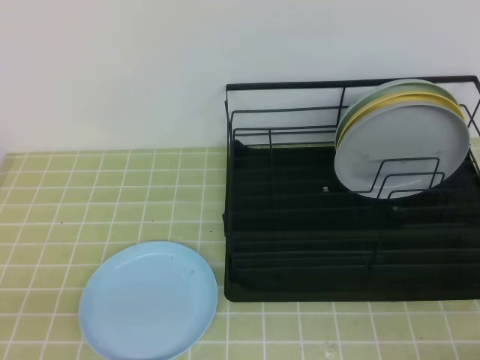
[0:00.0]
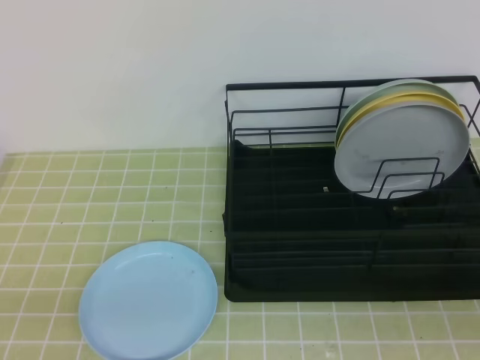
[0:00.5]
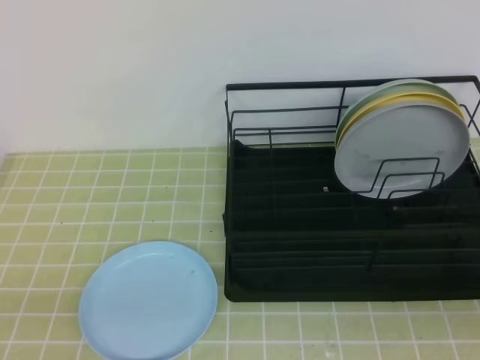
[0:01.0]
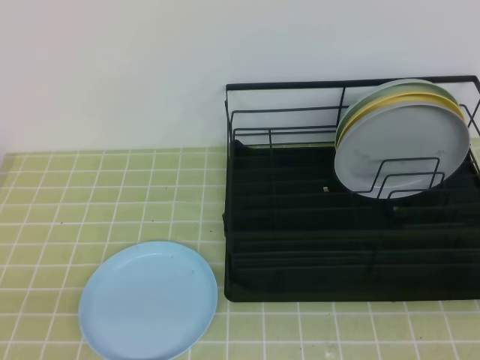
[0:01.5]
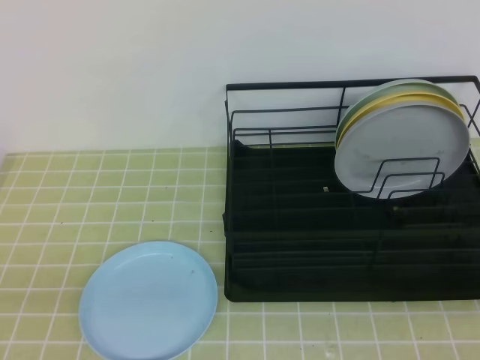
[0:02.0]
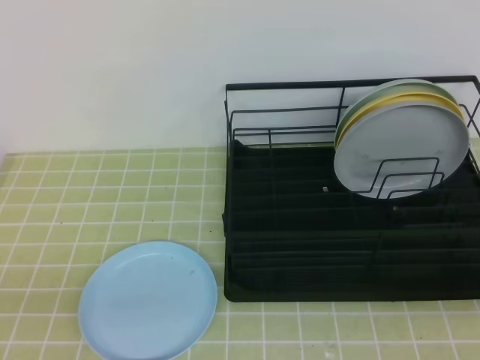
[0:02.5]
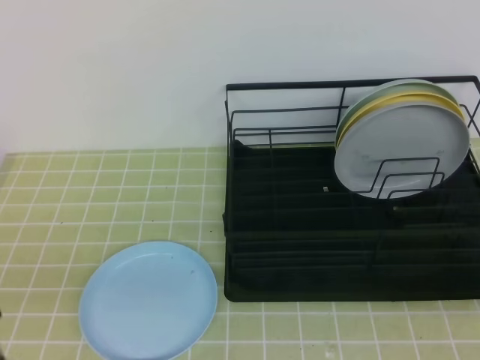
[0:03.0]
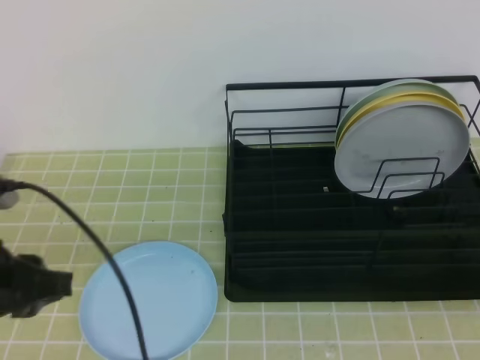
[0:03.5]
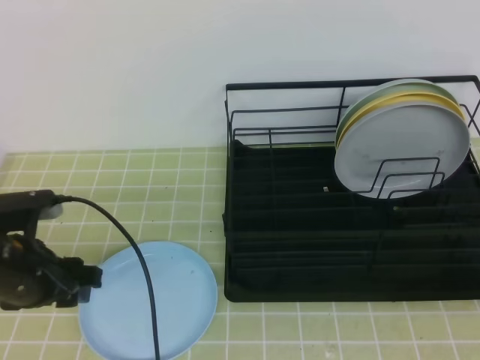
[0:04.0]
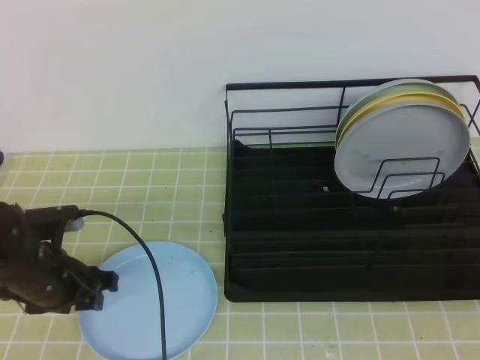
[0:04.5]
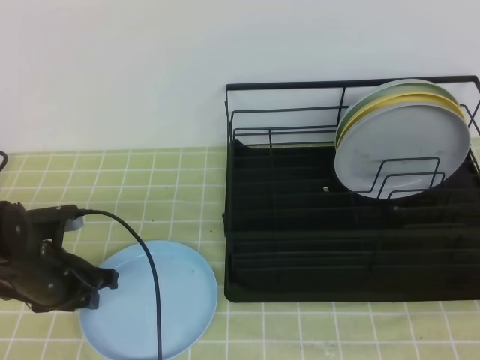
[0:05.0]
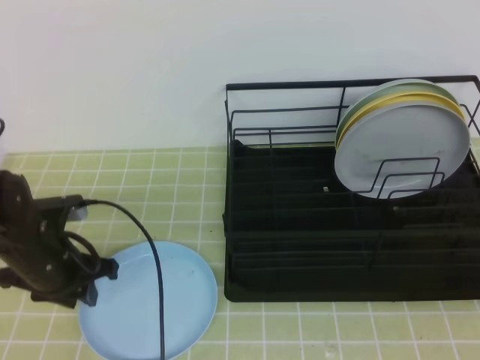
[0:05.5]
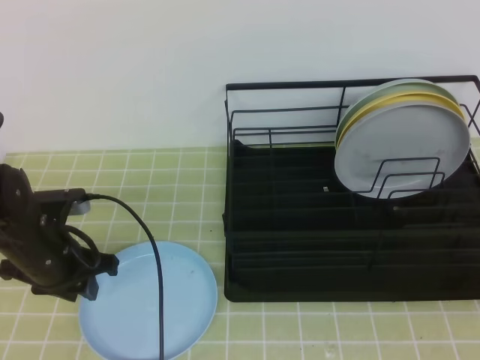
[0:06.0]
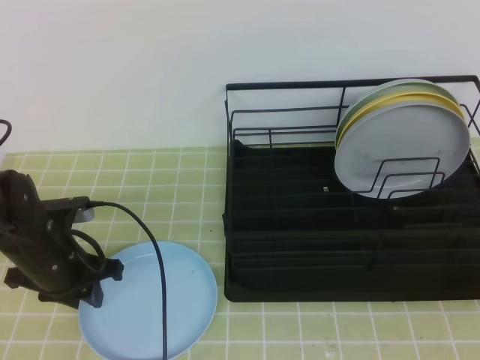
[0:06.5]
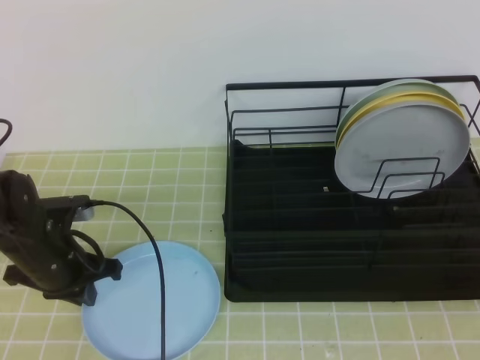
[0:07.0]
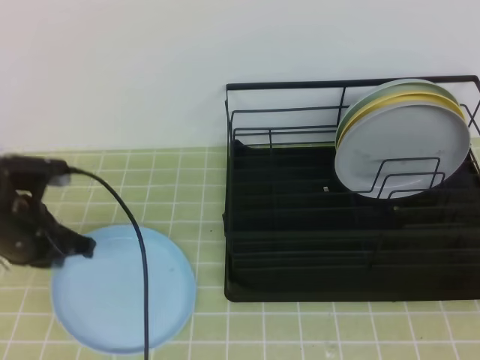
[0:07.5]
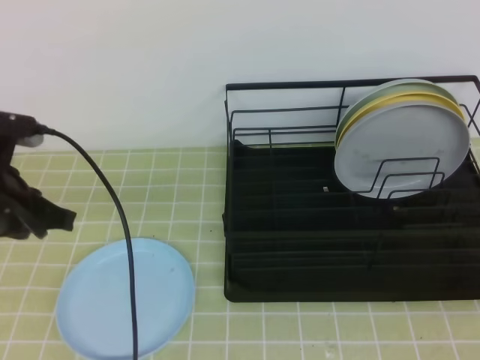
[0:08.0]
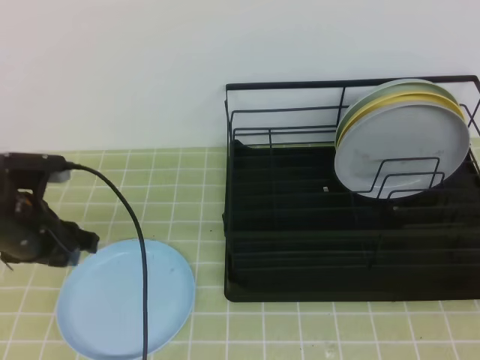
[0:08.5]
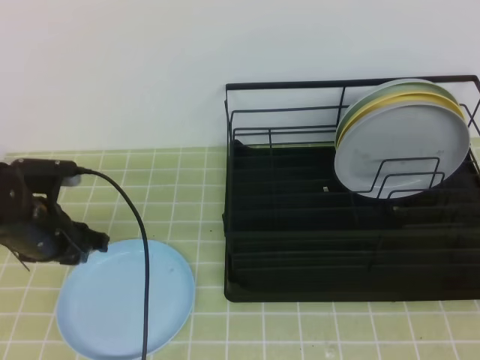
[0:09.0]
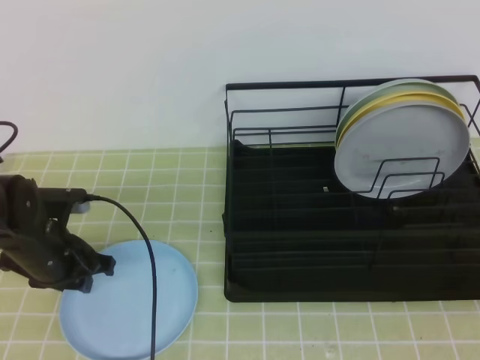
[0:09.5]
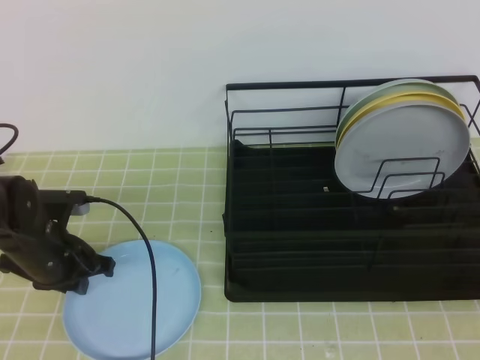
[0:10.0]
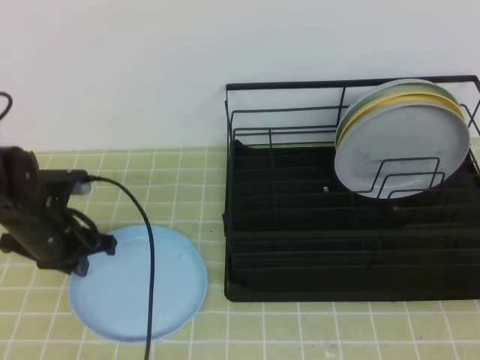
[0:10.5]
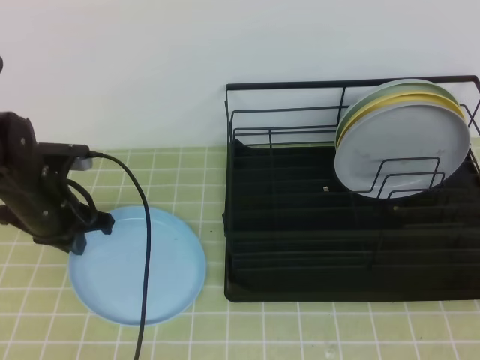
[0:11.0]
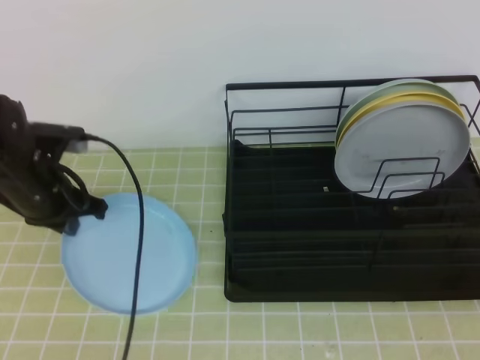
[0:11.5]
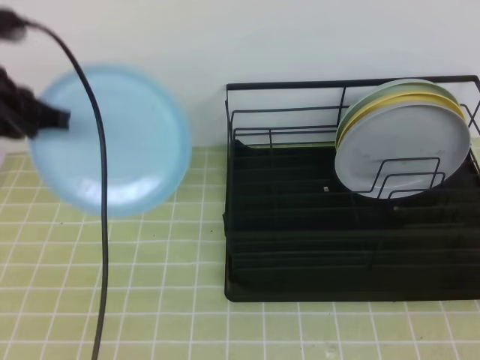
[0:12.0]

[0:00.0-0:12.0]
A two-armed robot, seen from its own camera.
2.0 to 4.0 s: The left gripper moves forward, roughly 20 cm, and opens its fingers.
4.0 to 6.0 s: The left gripper is displaced forward by approximately 5 cm, and closes.
6.0 to 8.0 s: The left gripper is displaced upward by about 10 cm, and closes its fingers.
8.0 to 10.0 s: The left gripper shifts some 15 cm downward, and opens, then closes again.
10.0 to 12.0 s: The left gripper is displaced upward by about 20 cm.

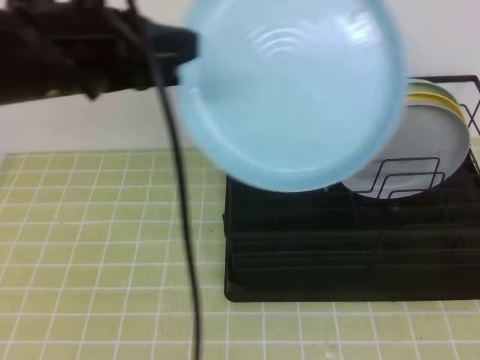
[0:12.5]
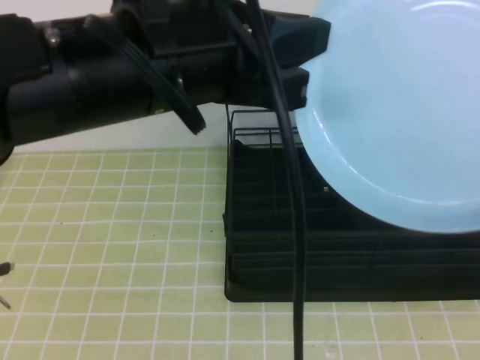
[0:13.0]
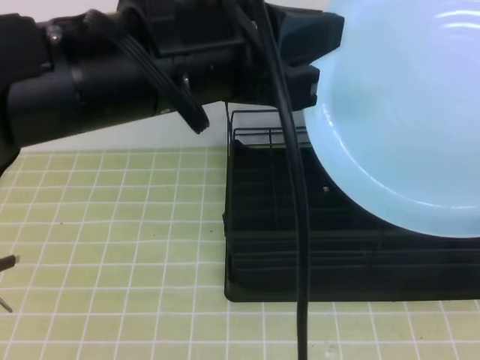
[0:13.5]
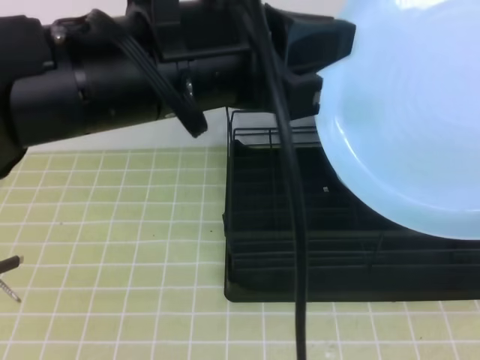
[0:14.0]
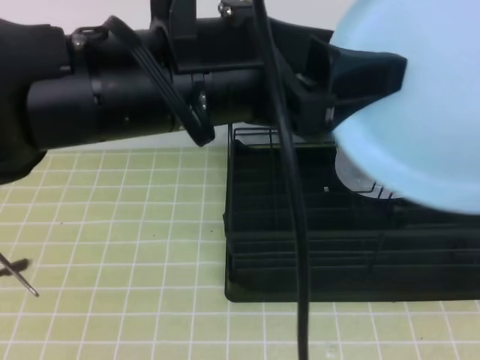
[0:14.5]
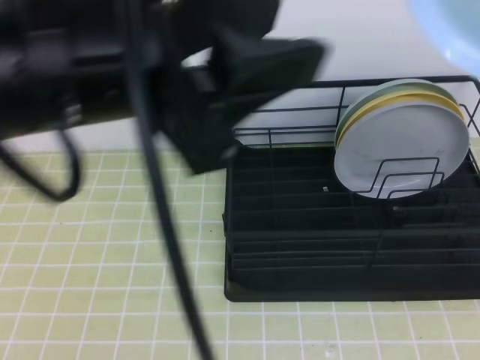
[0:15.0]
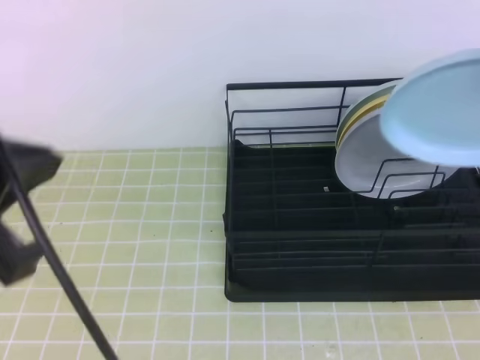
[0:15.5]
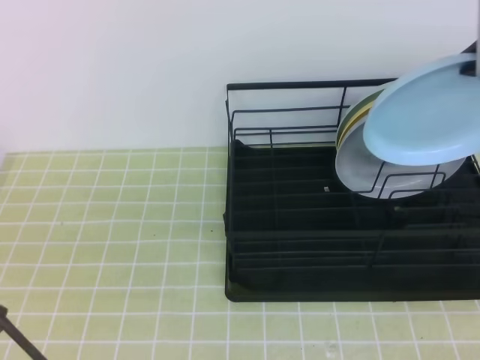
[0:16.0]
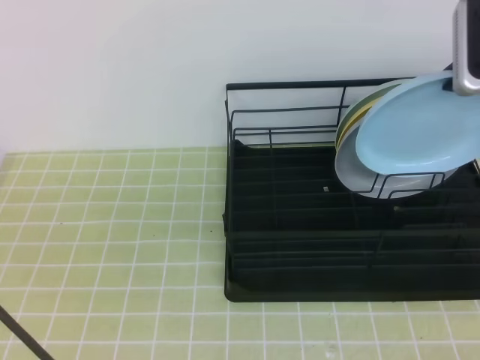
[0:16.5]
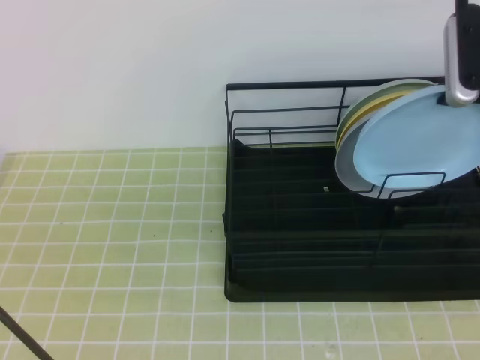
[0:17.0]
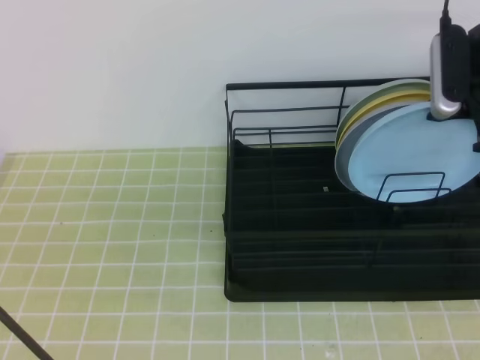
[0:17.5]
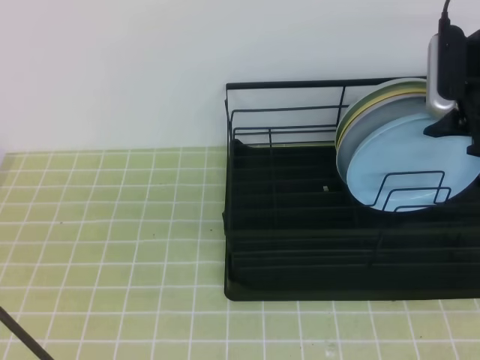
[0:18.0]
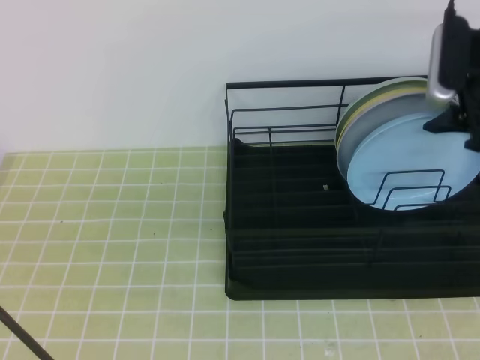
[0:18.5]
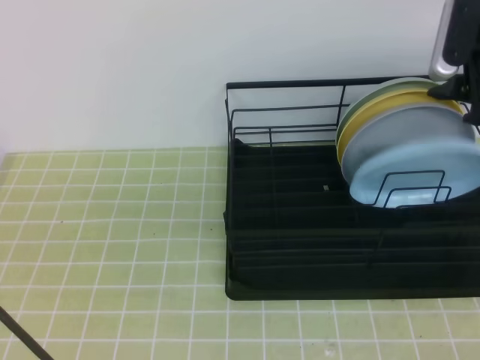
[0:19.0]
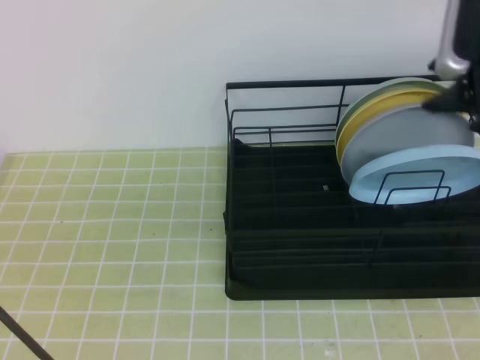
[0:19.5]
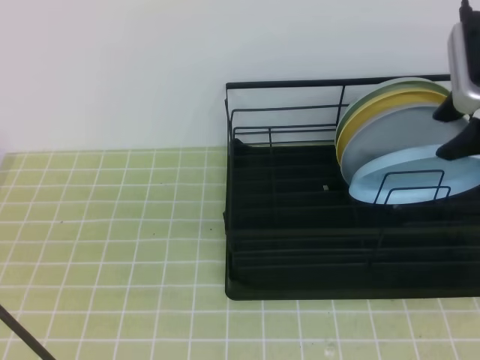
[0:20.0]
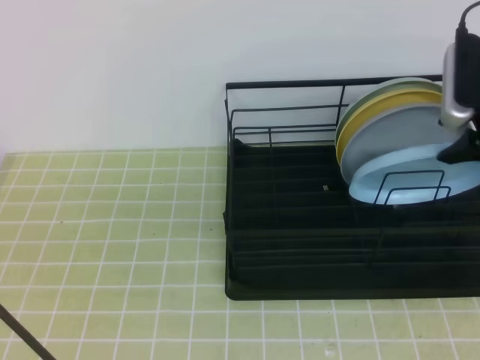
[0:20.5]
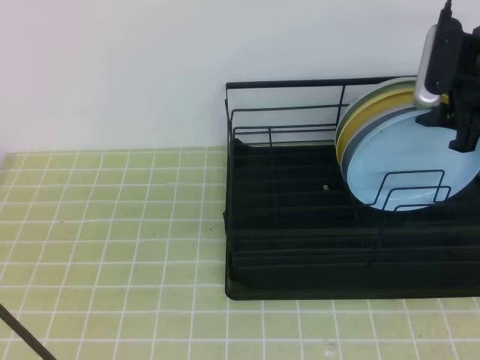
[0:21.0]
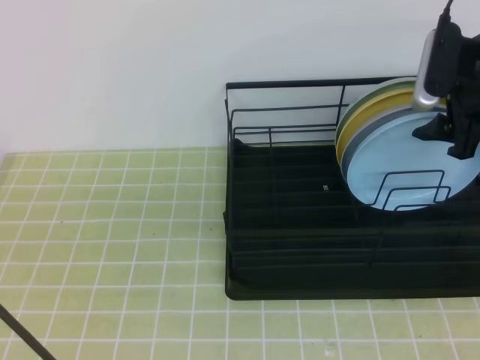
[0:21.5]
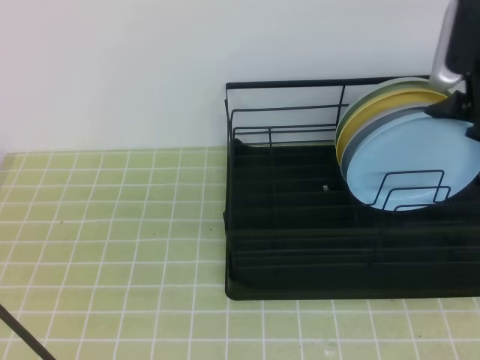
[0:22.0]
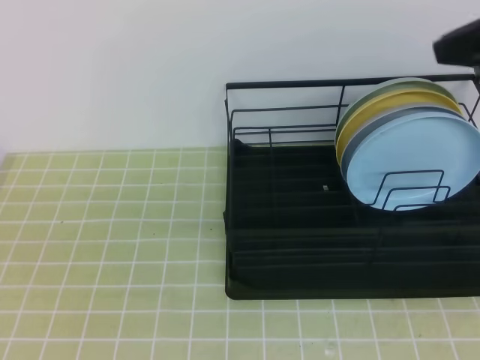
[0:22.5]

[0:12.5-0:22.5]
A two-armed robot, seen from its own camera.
12.5 to 14.5 s: The right gripper moves roughly 5 cm, and opens, then closes again; the left gripper shifts approximately 10 cm to the right and backward, and opens up.
14.5 to 16.5 s: The right gripper shifts some 25 cm forward; the left gripper travels to the left, backward and downward by roughly 20 cm, and closes up.
16.5 to 18.5 s: The right gripper moves some 5 cm, and opens up.
18.5 to 20.5 s: There are only small adjustments of the grippers.
20.5 to 22.5 s: The right gripper shifts roughly 10 cm upward and backward, and closes.

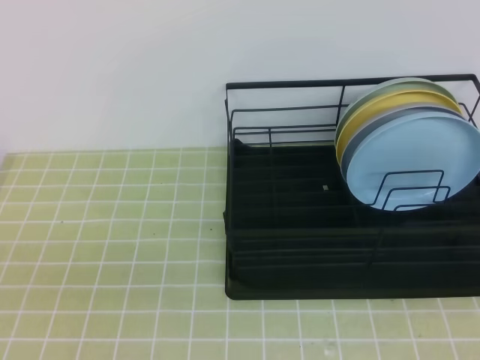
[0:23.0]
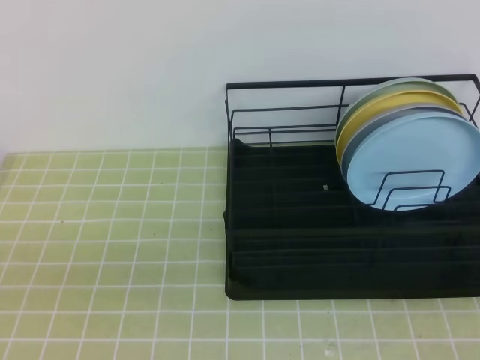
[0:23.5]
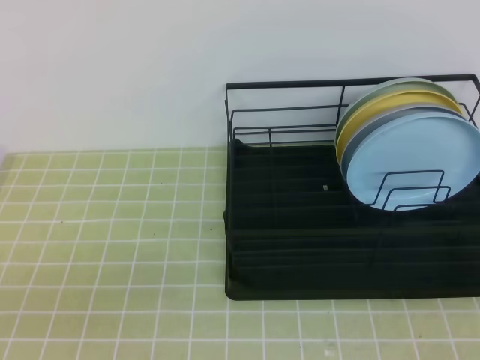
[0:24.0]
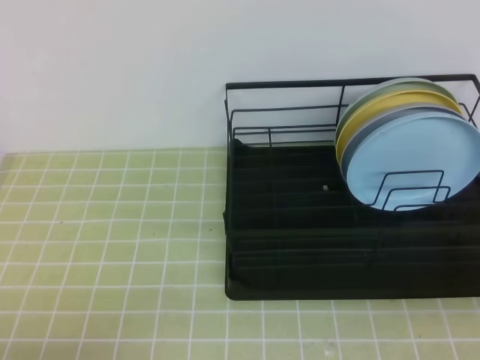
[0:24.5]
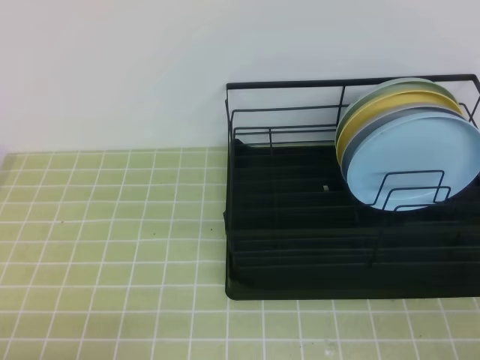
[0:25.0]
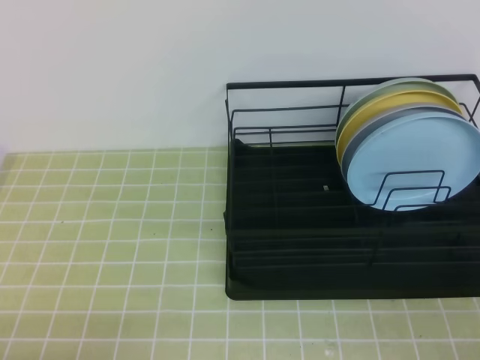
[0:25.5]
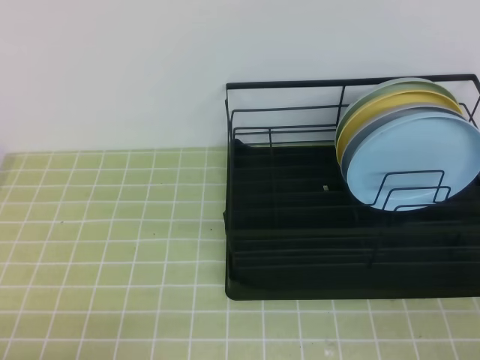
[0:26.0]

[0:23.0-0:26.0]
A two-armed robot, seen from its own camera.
23.0 to 24.5 s: The right gripper goes approximately 15 cm downward, backward and to the right. Meanwhile the left gripper shifts approximately 10 cm downward.

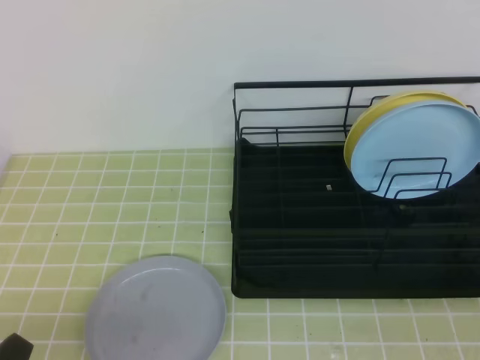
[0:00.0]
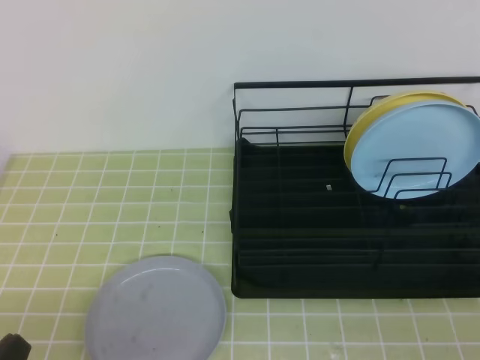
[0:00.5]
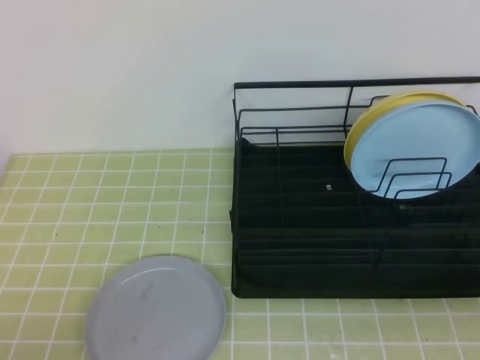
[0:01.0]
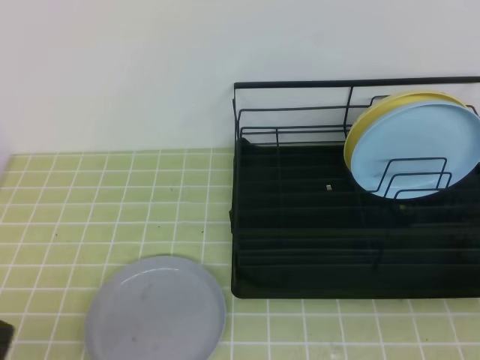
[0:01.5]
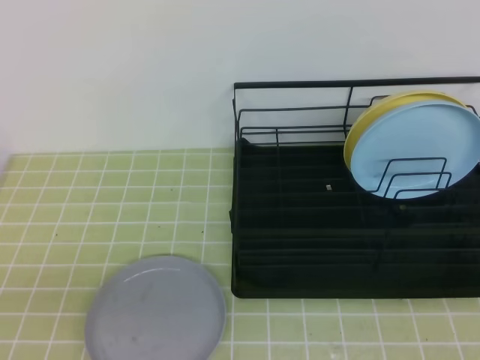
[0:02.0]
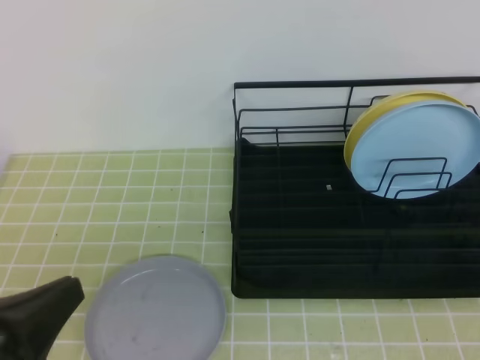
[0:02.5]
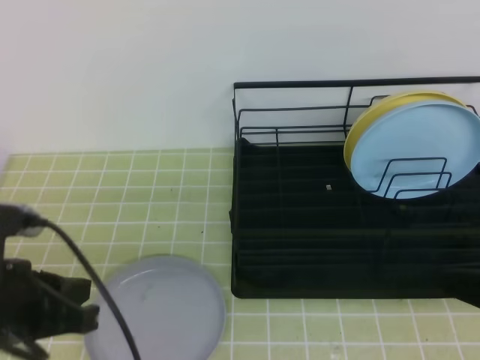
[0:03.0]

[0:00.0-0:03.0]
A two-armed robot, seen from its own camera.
1.5 to 3.0 s: The left gripper heads forward and upward, covering roughly 15 cm.
